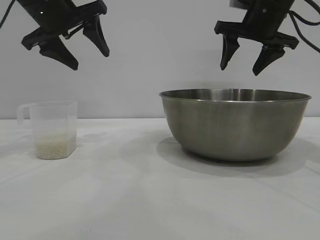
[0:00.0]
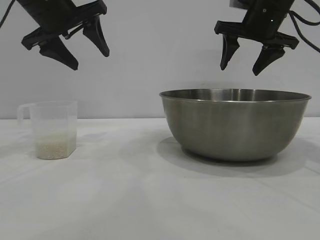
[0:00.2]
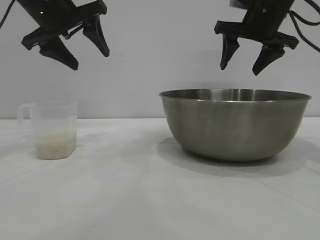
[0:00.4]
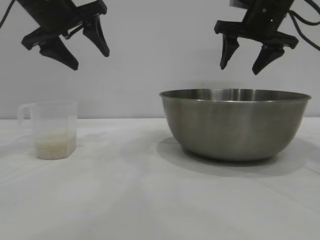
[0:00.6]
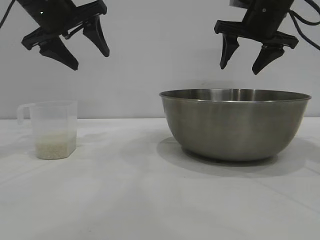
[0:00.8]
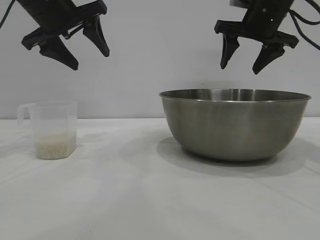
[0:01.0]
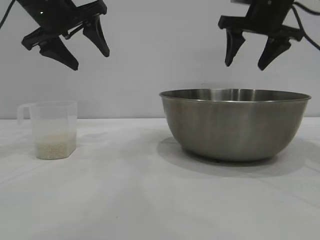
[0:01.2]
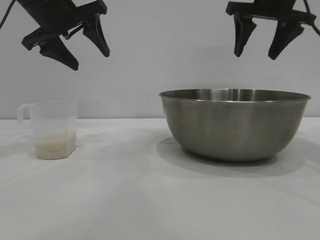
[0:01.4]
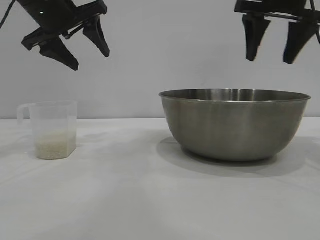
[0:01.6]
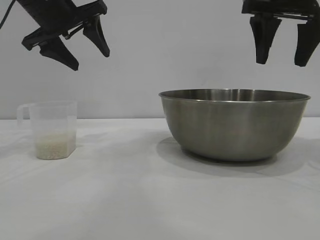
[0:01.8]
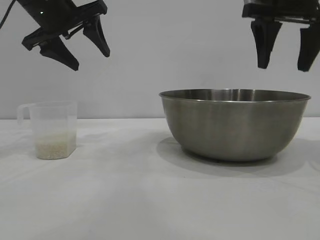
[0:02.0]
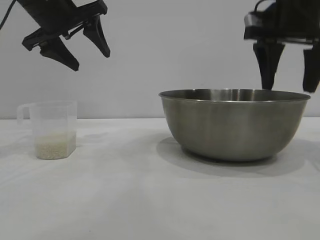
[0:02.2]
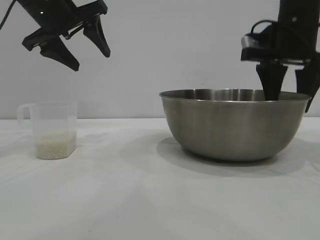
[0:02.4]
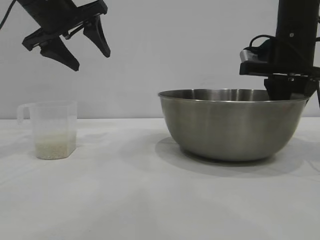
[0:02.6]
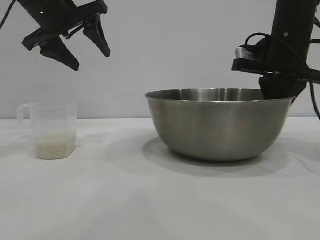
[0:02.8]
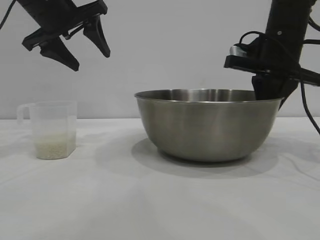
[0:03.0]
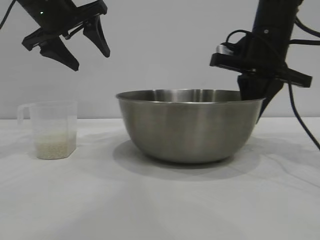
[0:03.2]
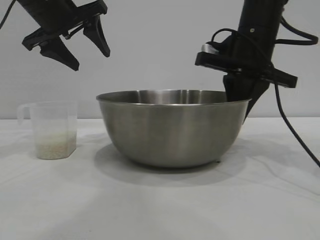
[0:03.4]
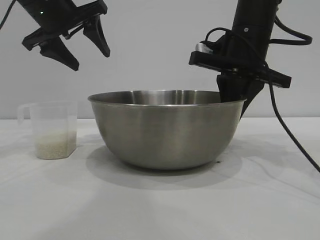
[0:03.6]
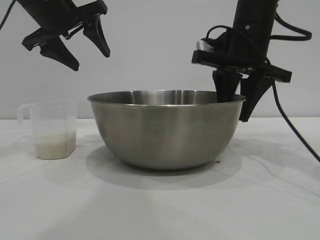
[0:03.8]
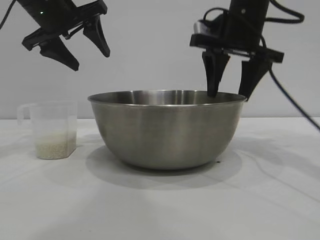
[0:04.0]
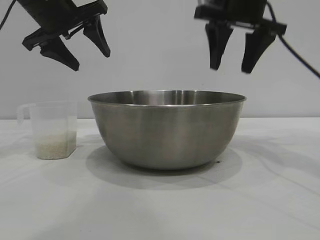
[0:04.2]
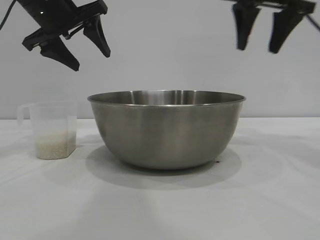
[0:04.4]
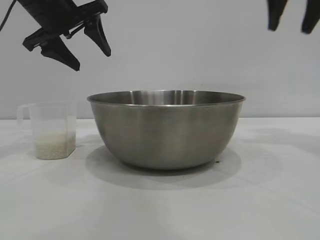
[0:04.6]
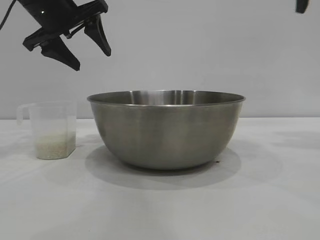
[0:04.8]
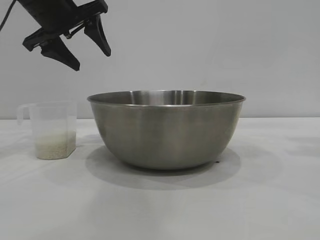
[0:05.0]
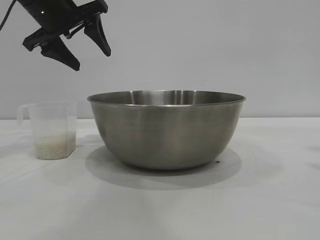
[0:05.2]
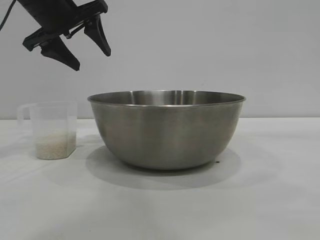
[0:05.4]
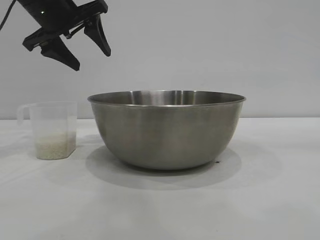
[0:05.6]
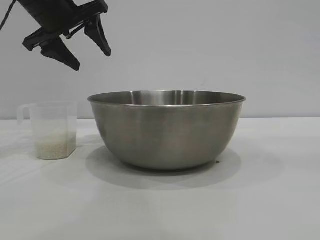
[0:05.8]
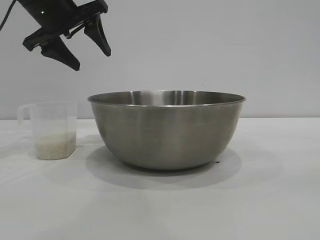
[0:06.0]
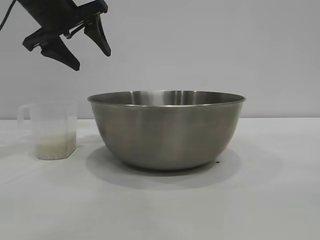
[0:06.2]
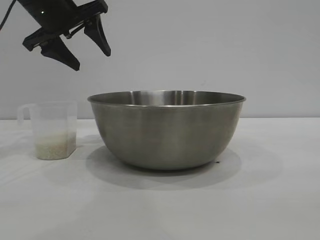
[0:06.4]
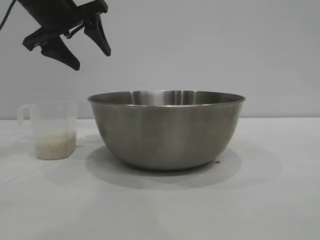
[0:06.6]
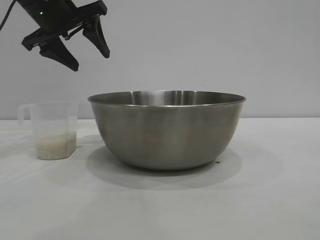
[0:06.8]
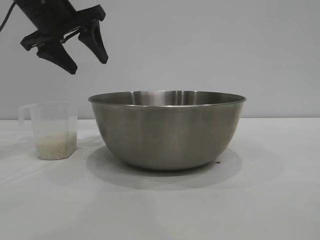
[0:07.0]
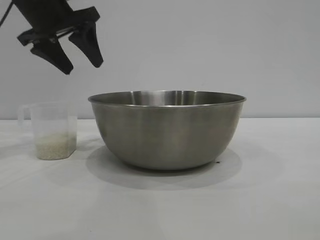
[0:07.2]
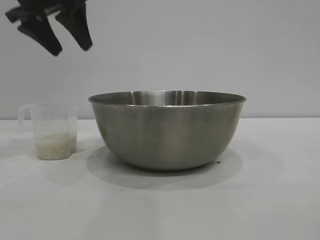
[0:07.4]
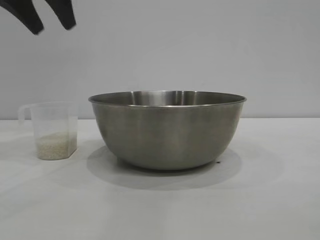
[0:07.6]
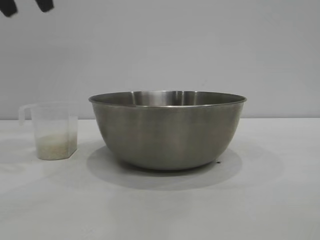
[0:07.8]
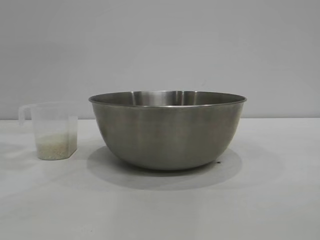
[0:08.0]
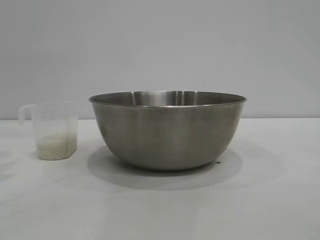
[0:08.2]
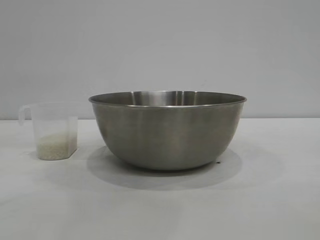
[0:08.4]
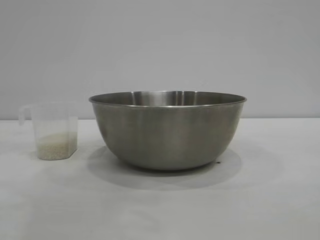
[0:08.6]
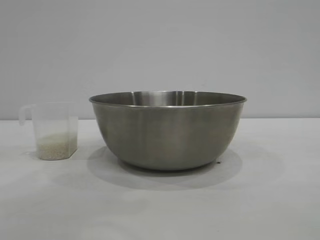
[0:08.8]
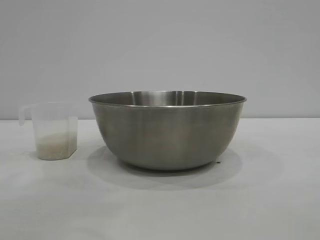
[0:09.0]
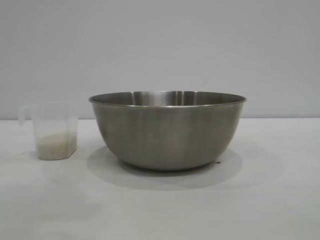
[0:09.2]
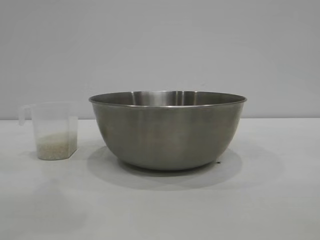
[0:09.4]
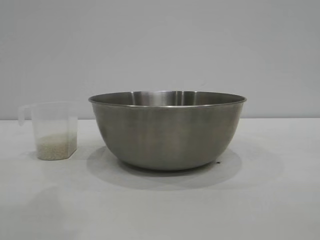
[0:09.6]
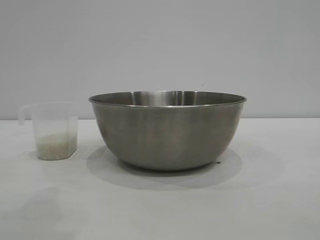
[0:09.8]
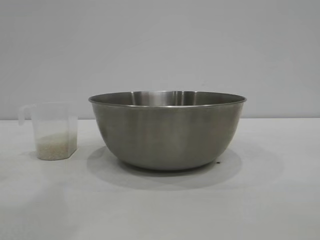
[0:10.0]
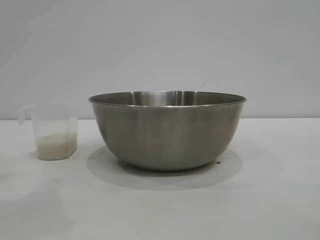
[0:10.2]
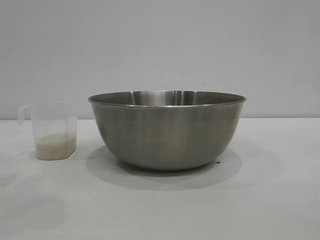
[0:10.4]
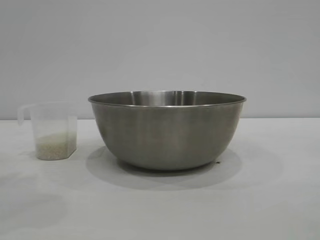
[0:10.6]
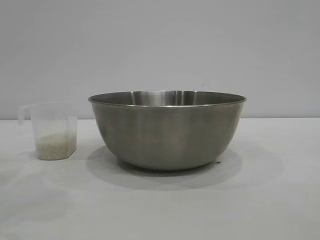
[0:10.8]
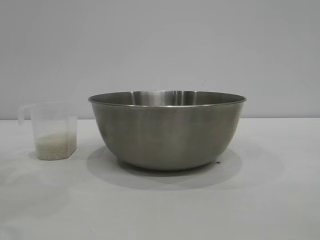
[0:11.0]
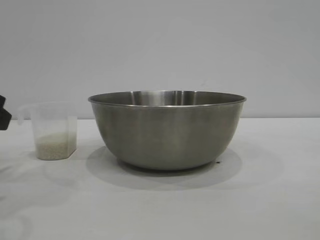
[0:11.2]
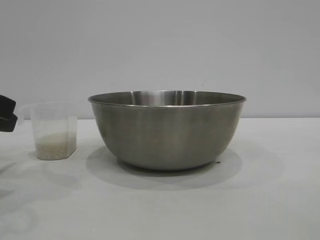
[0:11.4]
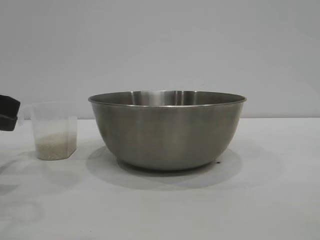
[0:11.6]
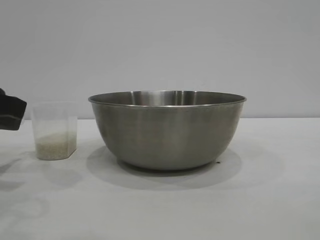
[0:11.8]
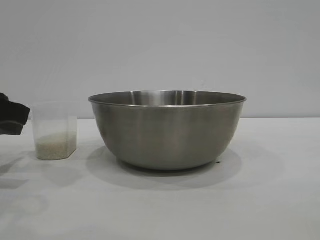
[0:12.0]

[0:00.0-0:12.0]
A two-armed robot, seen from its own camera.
Task of the whole recording: the right gripper grasp the rice container and place it in the center of the table, the left gripper grasp the rice scoop and pour the rice into the rice container.
Step, 0:00.0 to 0:03.8: Move the bowl to the center of view with the right gripper.

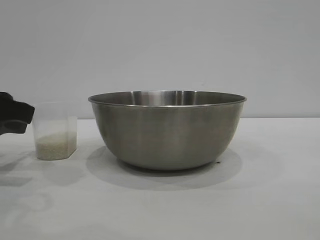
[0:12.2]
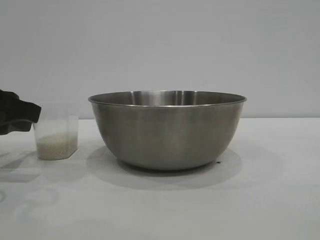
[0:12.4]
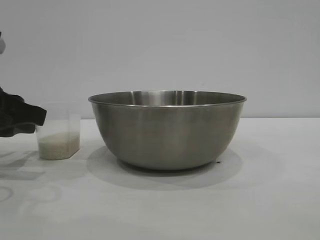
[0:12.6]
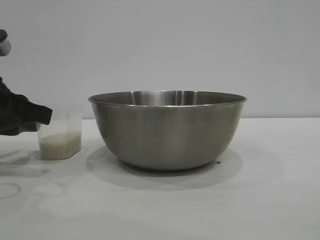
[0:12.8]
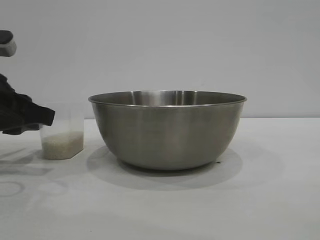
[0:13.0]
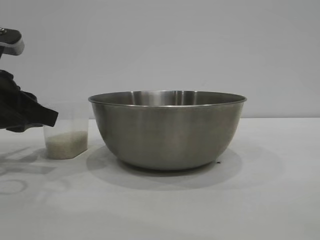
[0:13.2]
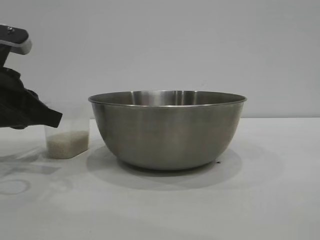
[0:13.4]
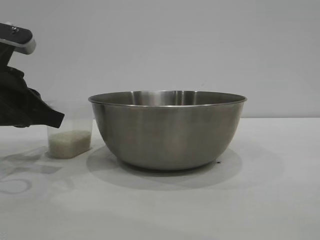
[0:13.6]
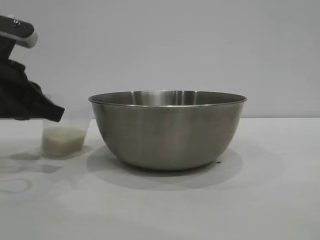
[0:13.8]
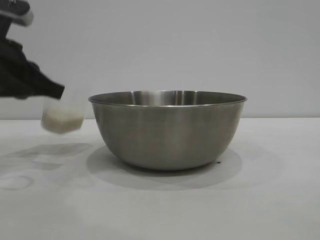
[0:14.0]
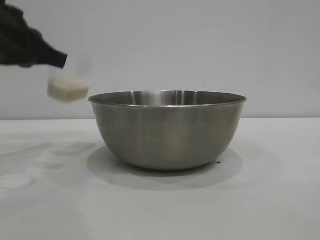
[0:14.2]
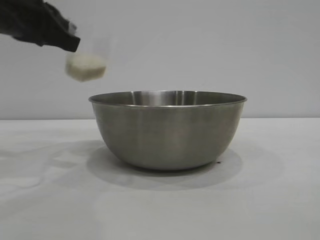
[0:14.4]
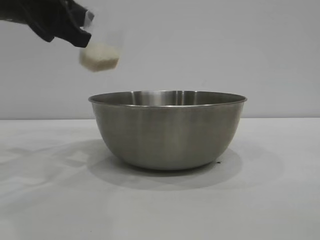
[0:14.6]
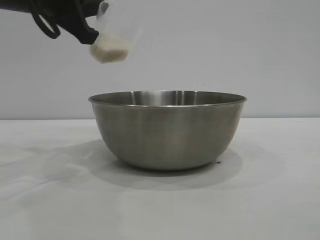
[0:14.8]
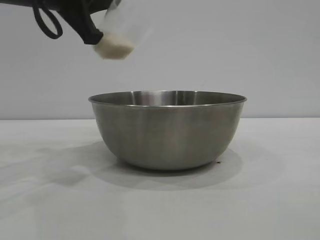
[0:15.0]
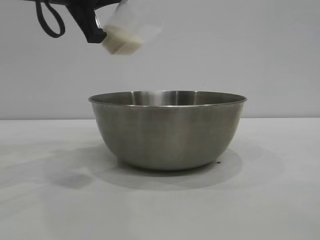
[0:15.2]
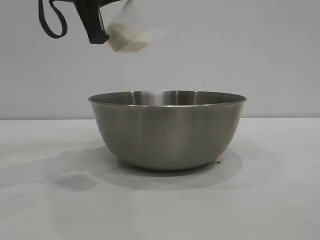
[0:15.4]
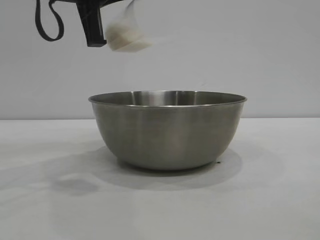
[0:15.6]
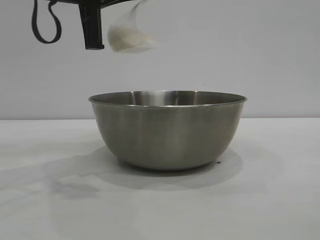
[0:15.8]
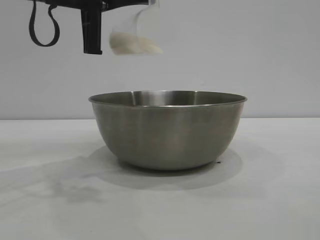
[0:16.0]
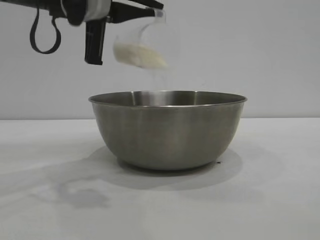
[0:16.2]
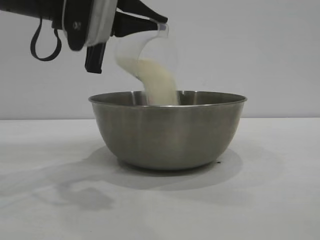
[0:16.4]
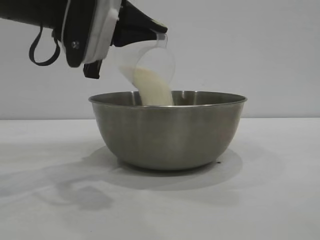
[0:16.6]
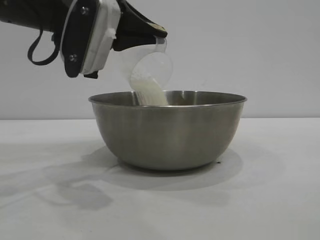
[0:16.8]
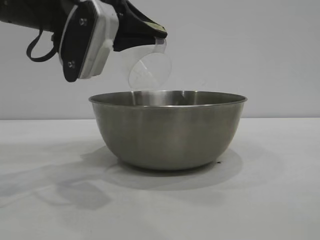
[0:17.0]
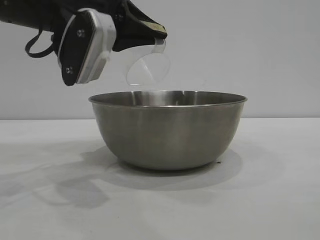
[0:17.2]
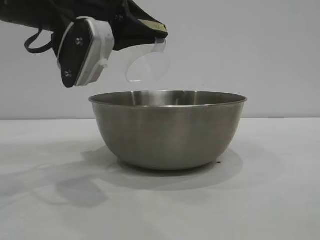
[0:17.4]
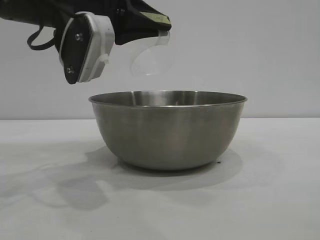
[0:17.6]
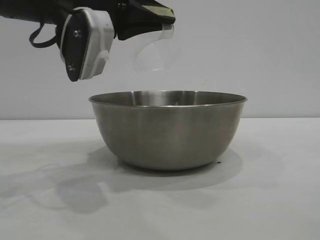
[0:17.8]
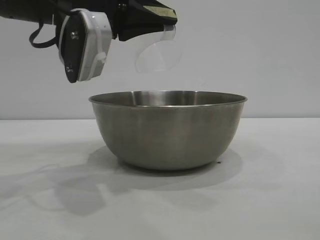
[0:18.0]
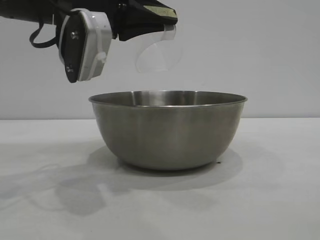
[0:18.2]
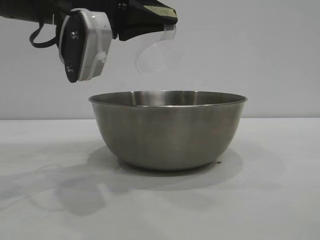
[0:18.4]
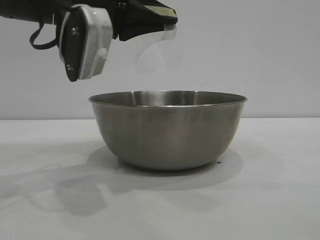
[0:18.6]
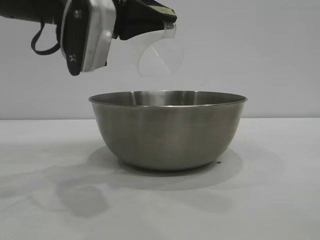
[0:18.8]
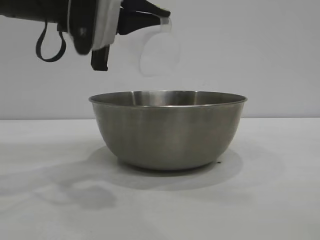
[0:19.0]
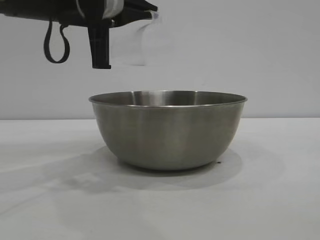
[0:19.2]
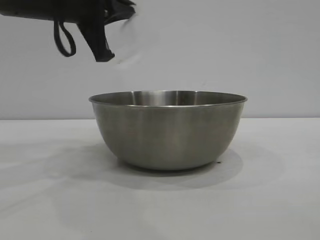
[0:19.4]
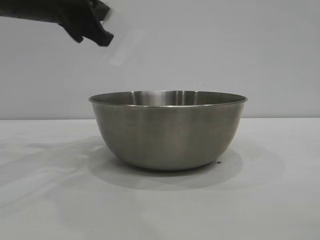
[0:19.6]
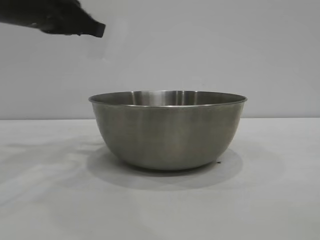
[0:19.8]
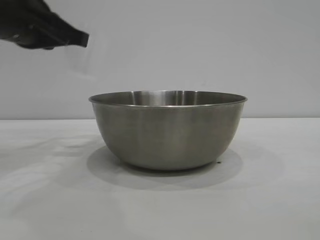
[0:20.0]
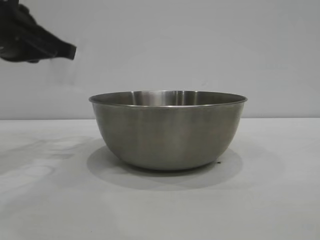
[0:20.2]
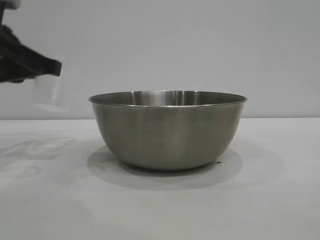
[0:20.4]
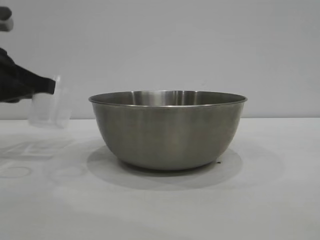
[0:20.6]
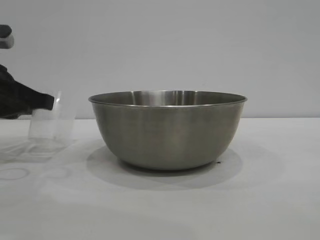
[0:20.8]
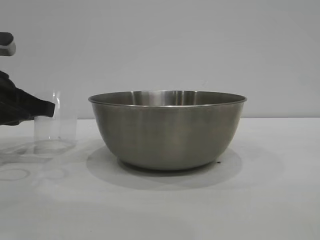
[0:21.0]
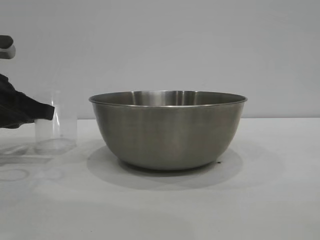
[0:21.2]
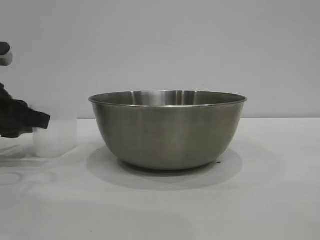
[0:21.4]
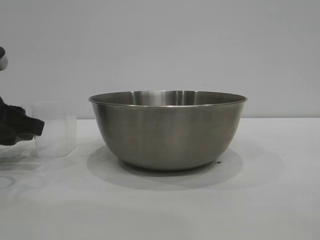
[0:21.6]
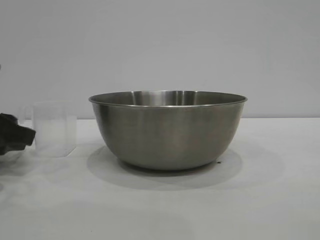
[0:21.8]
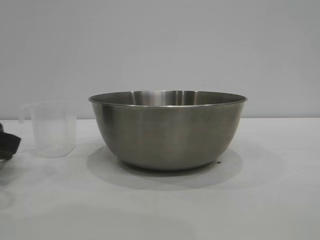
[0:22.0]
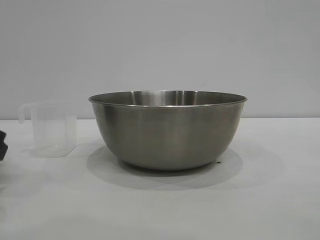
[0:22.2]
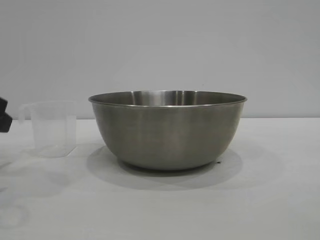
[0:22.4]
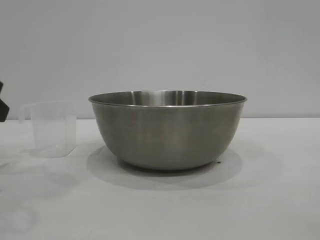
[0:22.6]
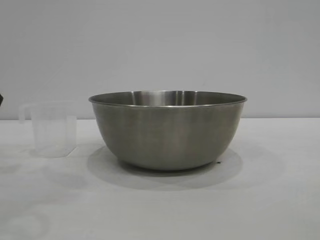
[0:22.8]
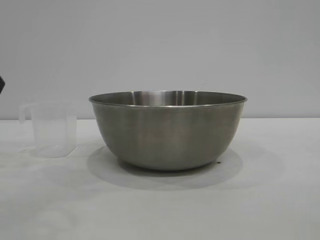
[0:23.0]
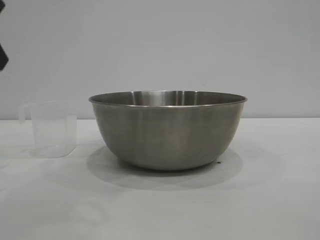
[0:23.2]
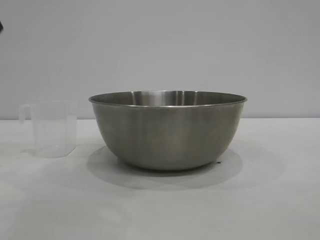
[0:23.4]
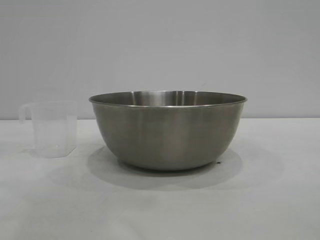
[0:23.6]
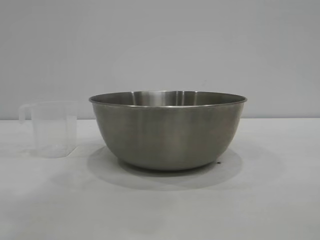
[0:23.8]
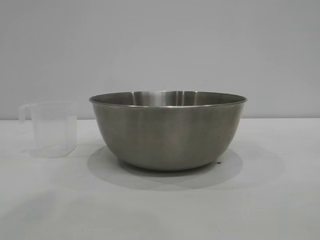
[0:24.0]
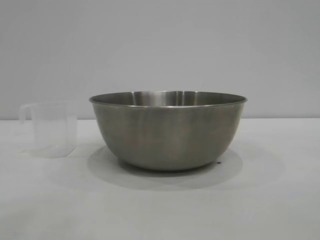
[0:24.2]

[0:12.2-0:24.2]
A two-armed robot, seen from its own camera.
Task of the whole recording: the right gripper grasp the rice container and place it in the center of the table, the left gripper grasp the rice scoop and pour the rice into the rice container.
Step, 0:14.0 to 0:19.2: Pour the rice from the cup into the bowl with the left gripper.
Step, 0:19.6 to 0:22.0: Place the cup on the table with the left gripper.
